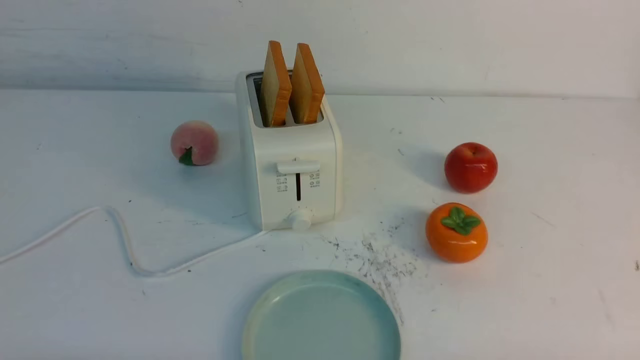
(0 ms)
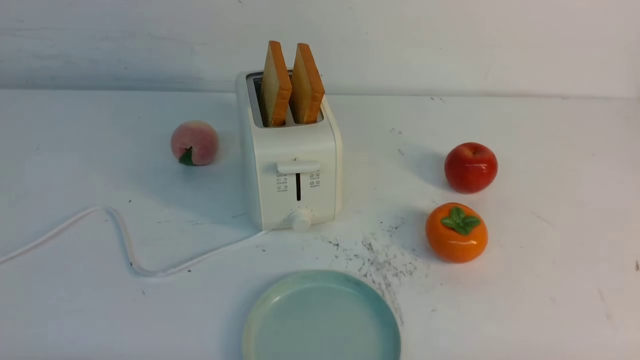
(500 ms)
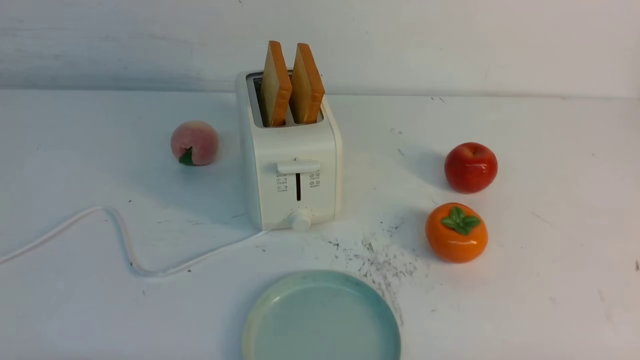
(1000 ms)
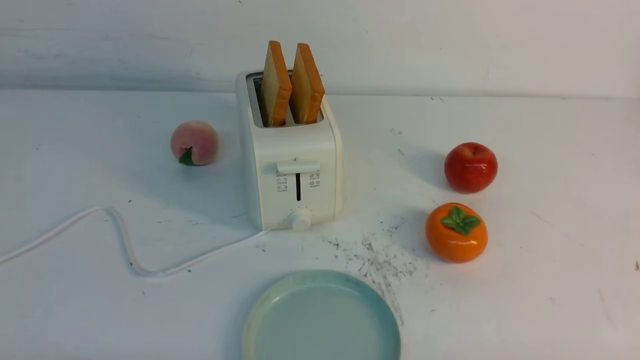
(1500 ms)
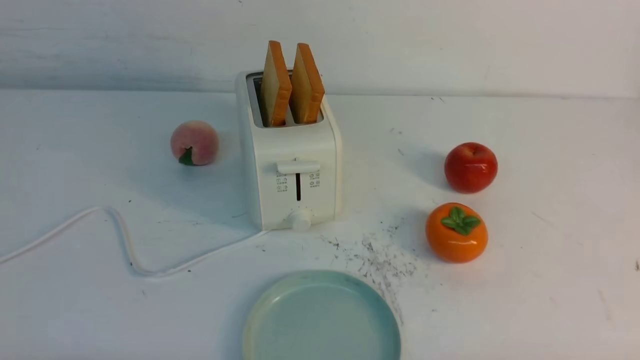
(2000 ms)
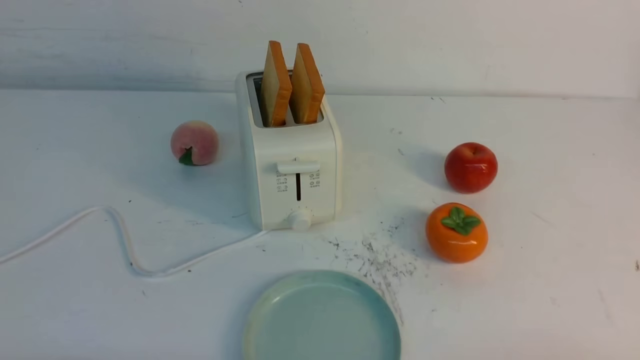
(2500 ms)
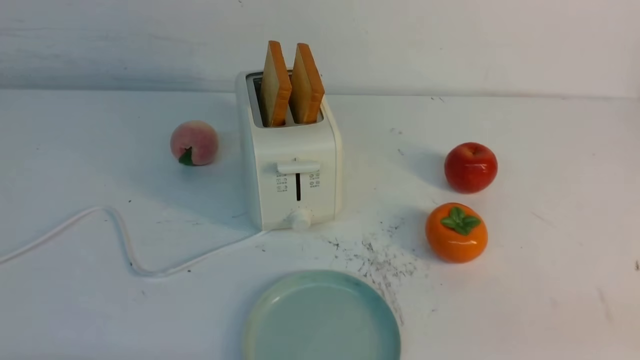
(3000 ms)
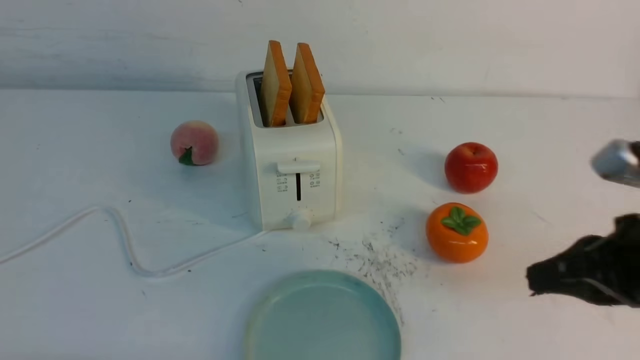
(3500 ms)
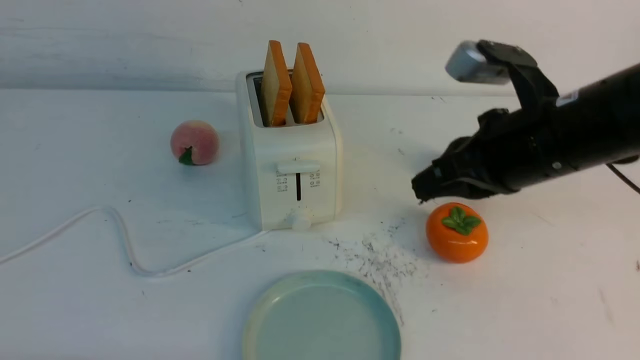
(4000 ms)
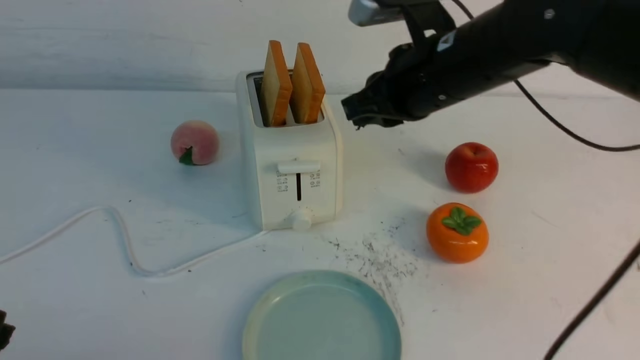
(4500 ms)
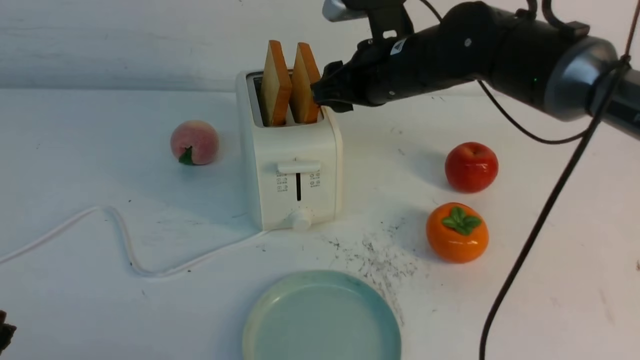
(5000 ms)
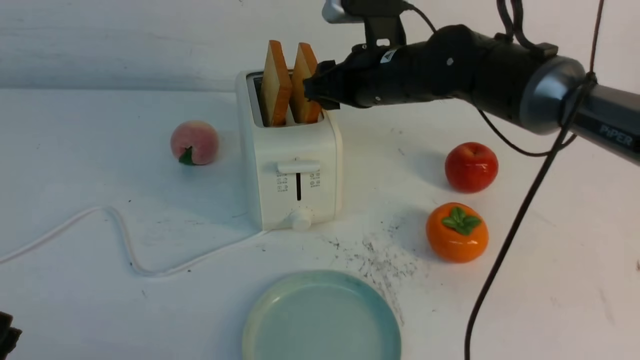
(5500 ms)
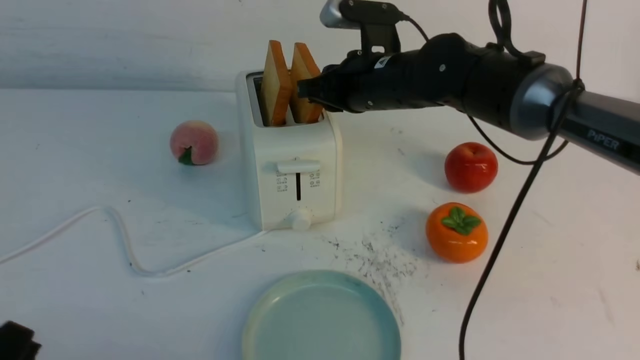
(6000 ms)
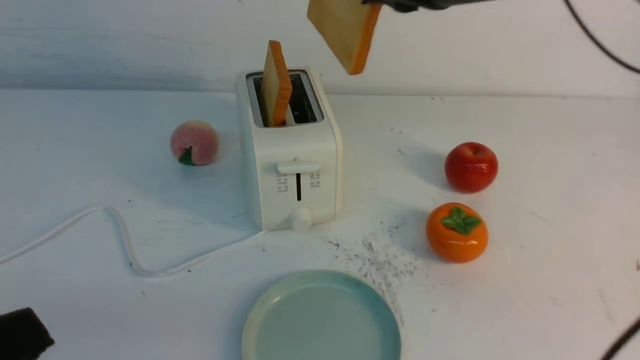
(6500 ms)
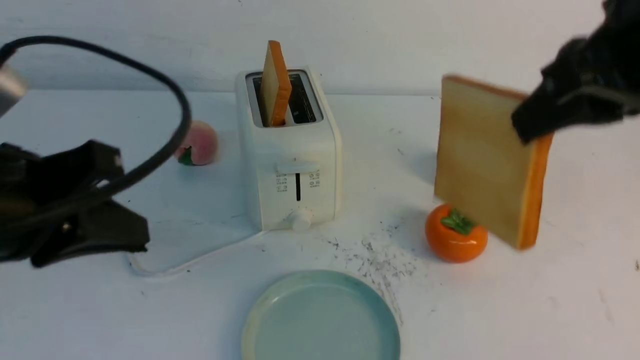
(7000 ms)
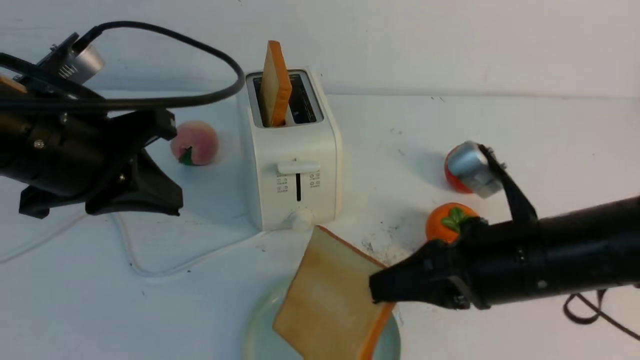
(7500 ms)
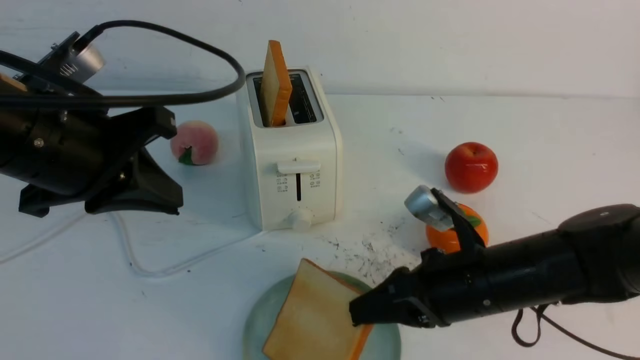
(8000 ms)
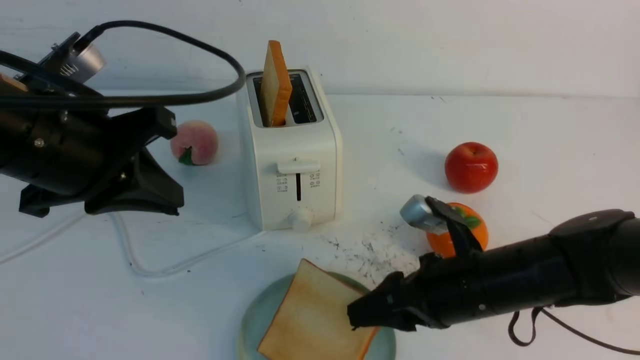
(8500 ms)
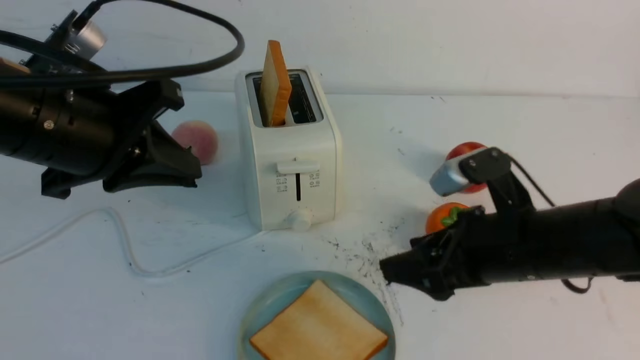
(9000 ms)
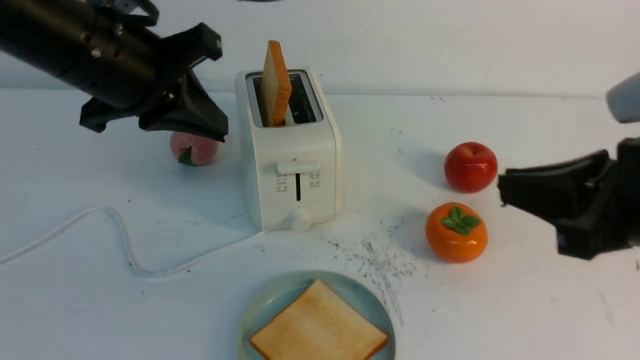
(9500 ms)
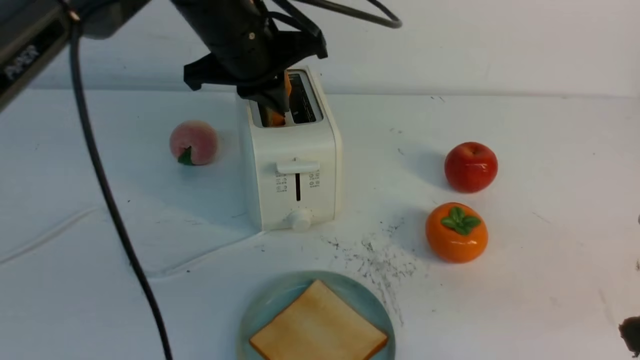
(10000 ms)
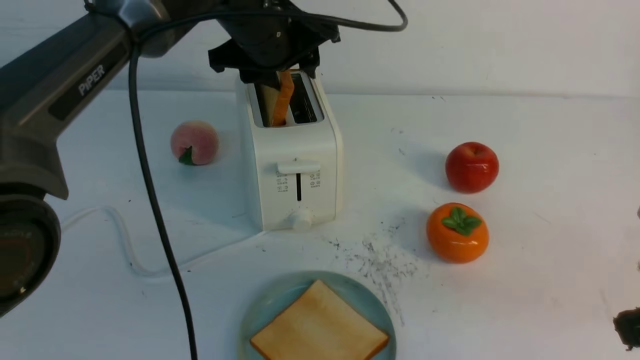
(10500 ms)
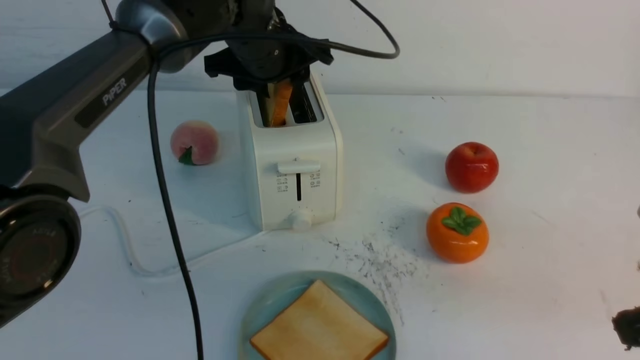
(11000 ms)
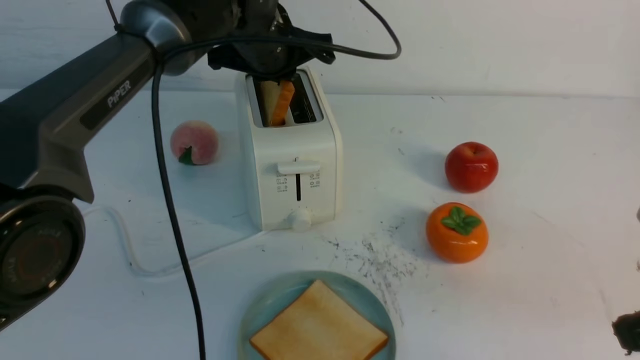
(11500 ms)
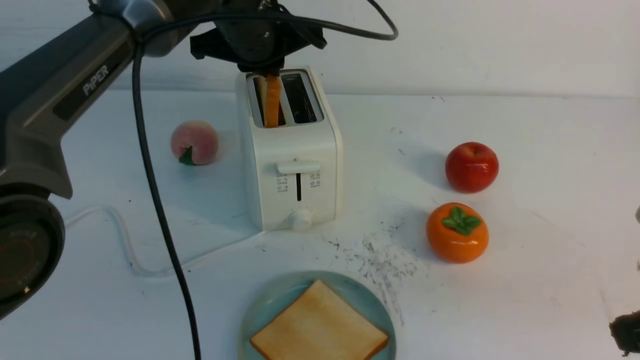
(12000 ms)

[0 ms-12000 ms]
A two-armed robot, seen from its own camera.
Task of the whole recording: take toasted bread from bread machine on white table place on plate.
Step, 0 ms to 6000 ms: use the right arm to take out a slice of bread.
Step, 6500 ms to 8500 ms: use the right arm to put a slice of bread into the plate.
2000 ms to 4000 ms: The right gripper heads forward, upward and to the left, covering approximately 30 cm, and closes its fingers.
4000 ms to 6000 ms: The right gripper is displaced forward and to the left by roughly 20 cm, and opens and closes again.
6000 ms to 8000 ms: The right gripper is displaced backward, downward and to the right by roughly 20 cm, while the left gripper moves forward and upward, about 25 cm.
8000 ms to 10000 ms: The right gripper goes roughly 20 cm to the right, upward and backward, and opens, then closes again. Meanwhile the left gripper moves forward and to the right, roughly 20 cm.
10000 ms to 12000 ms: The left gripper opens, then closes again.

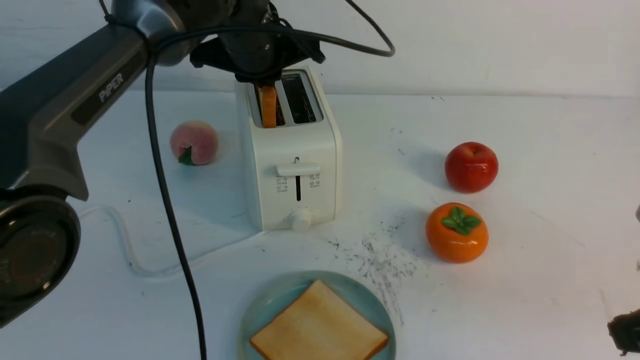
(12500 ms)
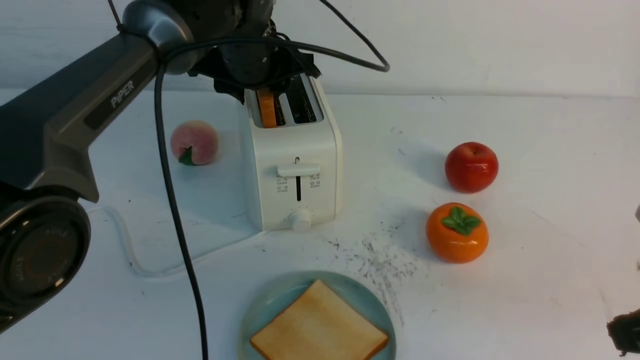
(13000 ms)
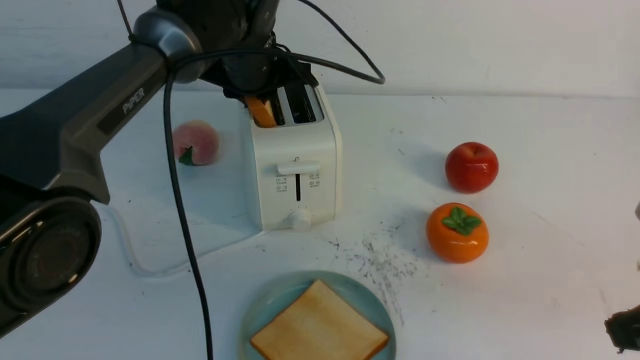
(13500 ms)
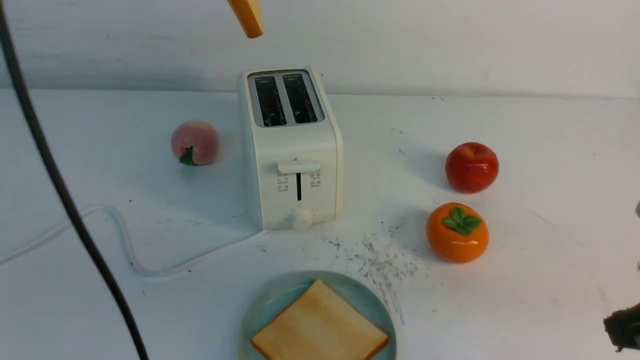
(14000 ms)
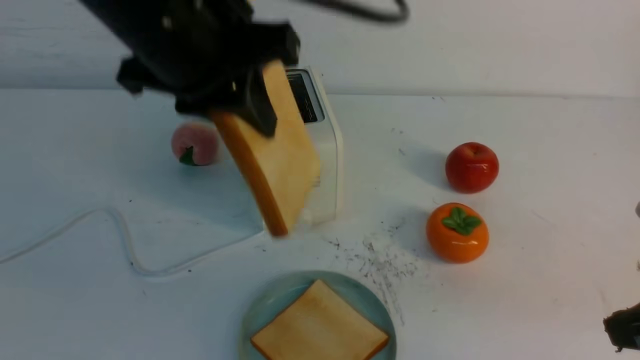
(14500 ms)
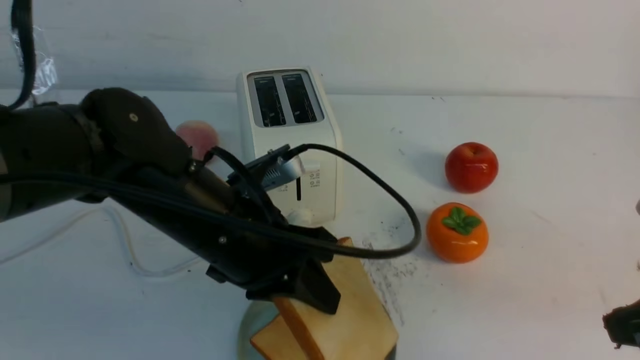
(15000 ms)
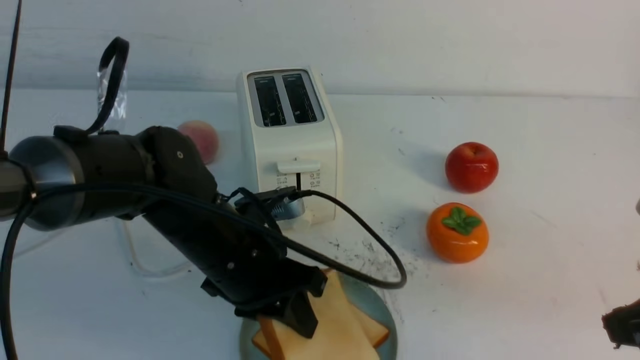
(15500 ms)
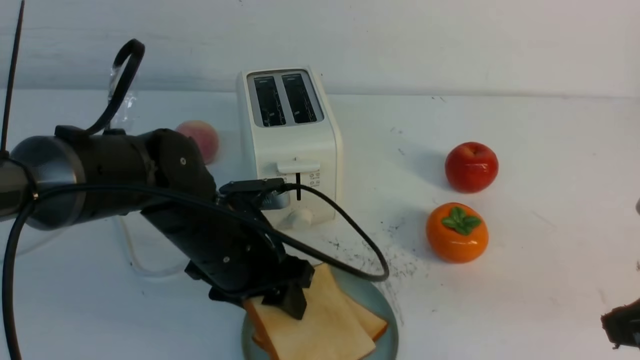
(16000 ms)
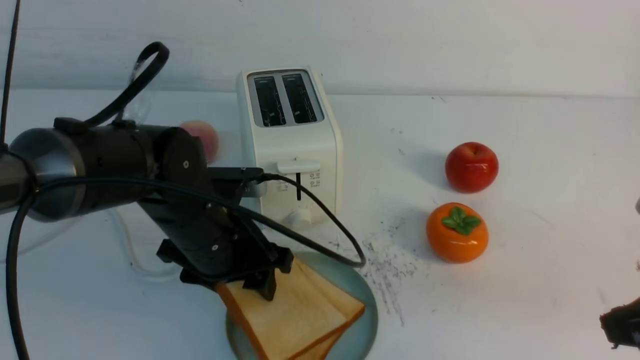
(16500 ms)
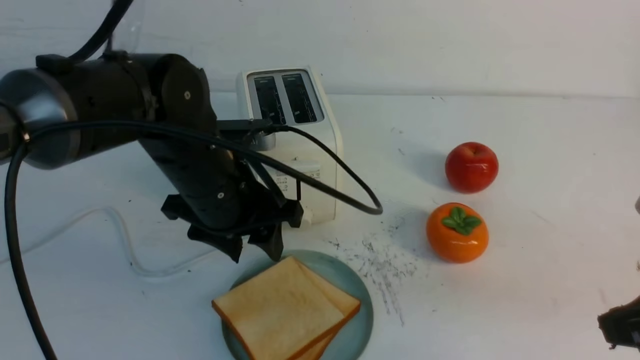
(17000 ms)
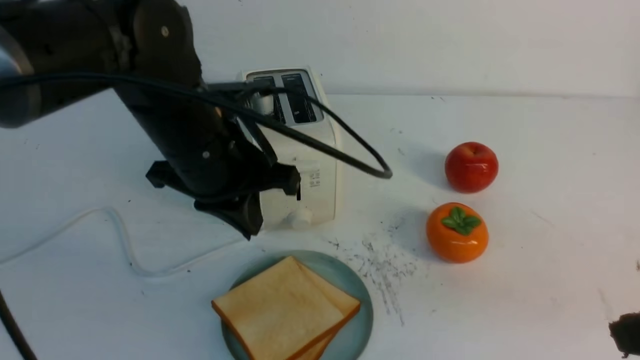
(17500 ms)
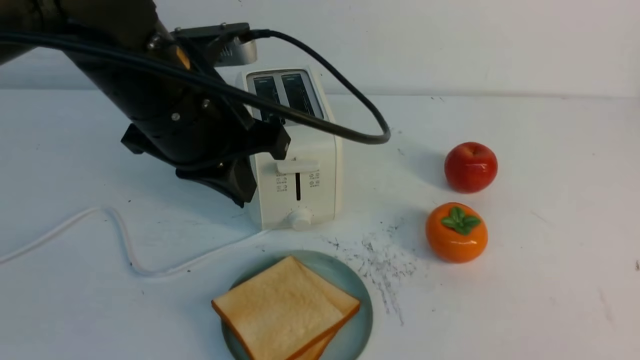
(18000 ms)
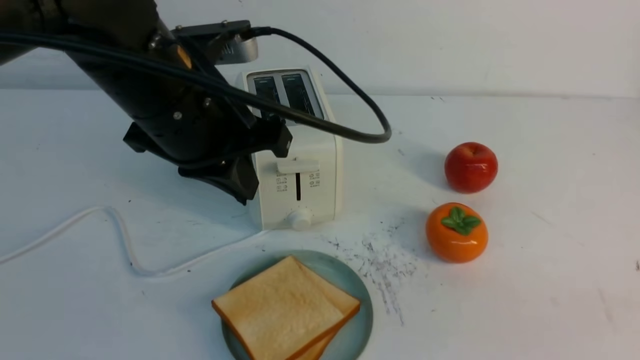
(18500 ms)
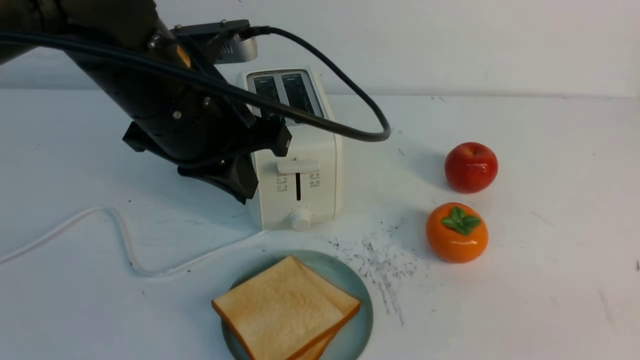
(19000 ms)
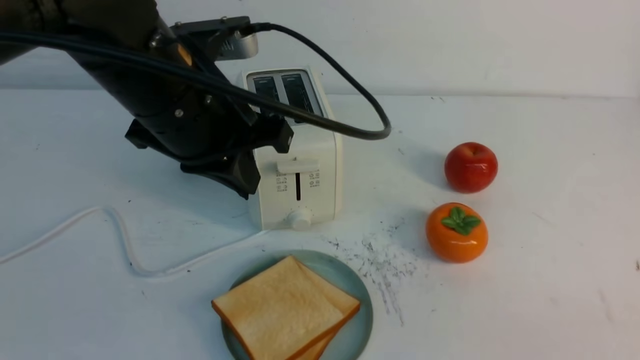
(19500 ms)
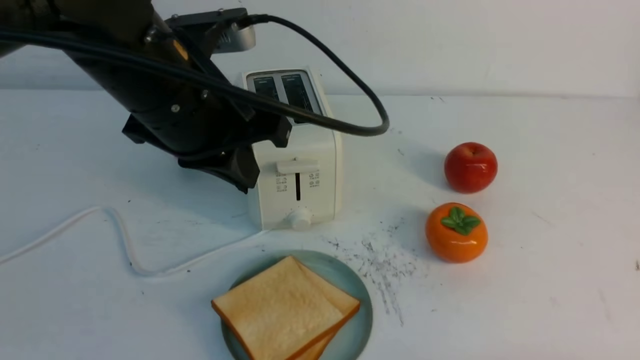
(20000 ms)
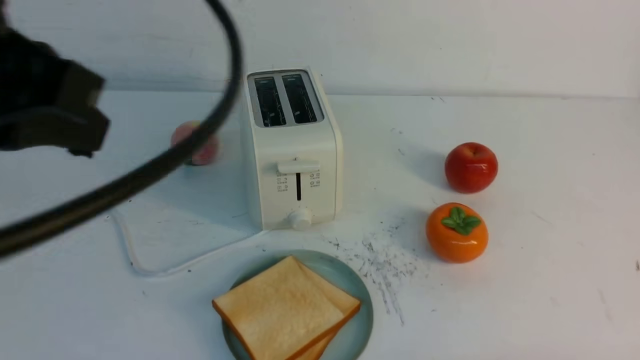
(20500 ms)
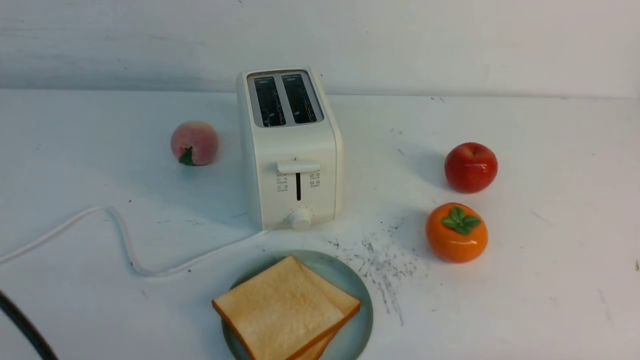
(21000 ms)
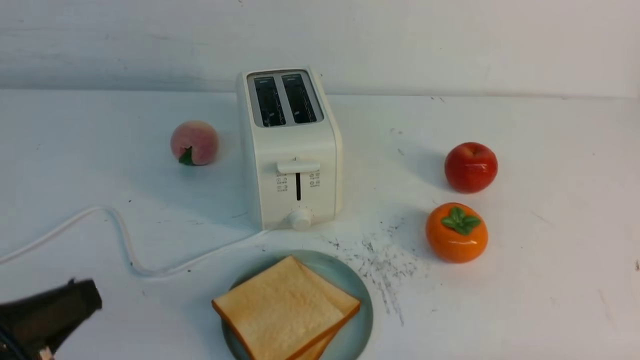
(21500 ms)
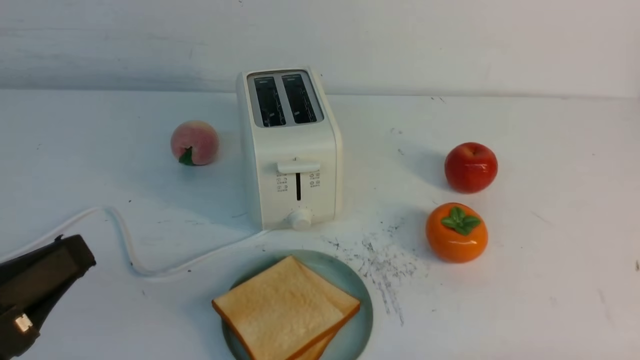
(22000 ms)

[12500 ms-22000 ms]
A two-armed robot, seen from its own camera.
Task of the whole recording: take toasted bread from bread machine on white table place on plate.
Step, 14000 ms to 16500 ms: use the left arm to put a slice of bread into the empty plate.
12500 ms to 14500 ms: The left gripper is displaced backward by approximately 15 cm, and opens, then closes once more.
14500 ms to 16500 ms: The left gripper moves downward, about 20 cm, and opens its fingers.
16500 ms to 18000 ms: The right gripper heads backward, covering about 15 cm. The left gripper goes approximately 15 cm upward, and closes up.
18000 ms to 20000 ms: The right gripper shifts about 15 cm downward.
20000 ms to 22000 ms: The left gripper heads backward, to the left and downward, covering approximately 25 cm.
